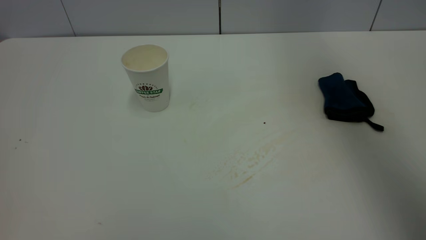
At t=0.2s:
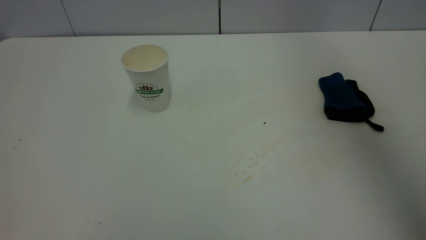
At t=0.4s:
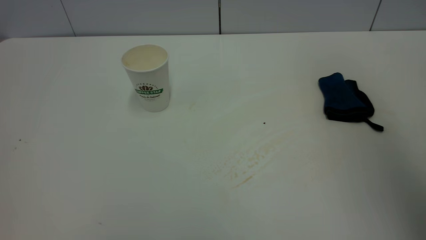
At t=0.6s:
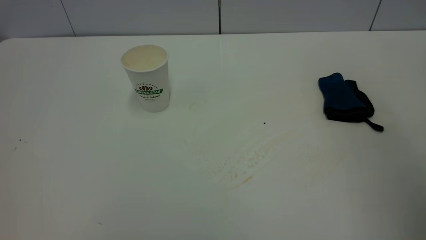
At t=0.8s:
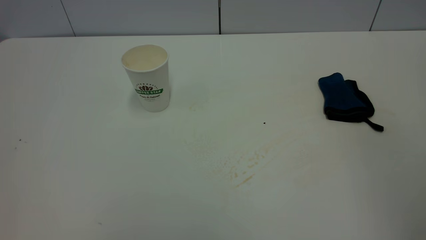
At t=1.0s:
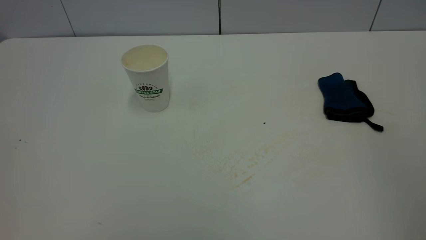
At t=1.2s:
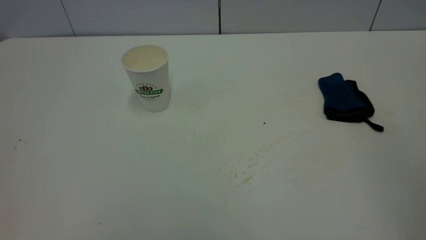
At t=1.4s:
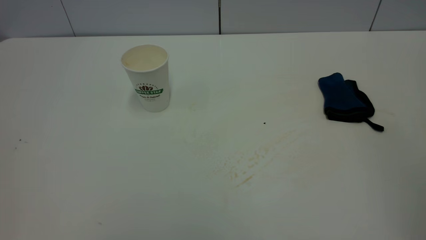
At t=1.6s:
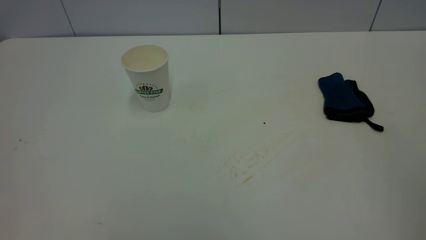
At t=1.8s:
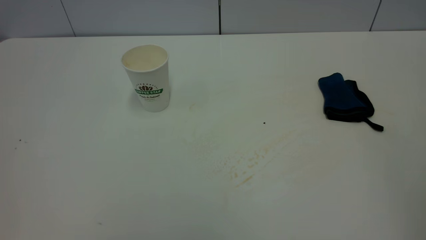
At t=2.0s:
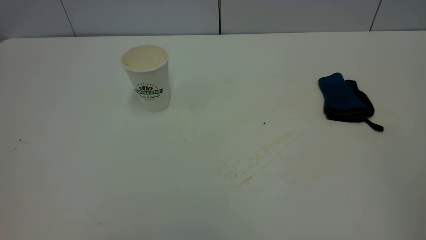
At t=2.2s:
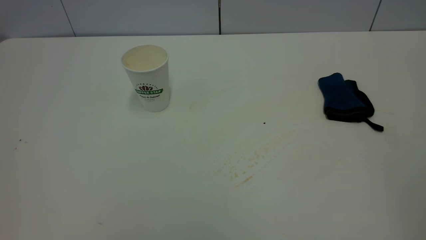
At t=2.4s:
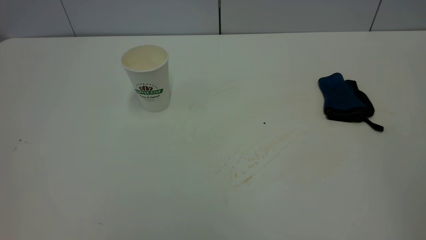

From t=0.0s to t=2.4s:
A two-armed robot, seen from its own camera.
Task of the whole recording: the left gripper pick up the fallen cup and place it upright, the right gripper grasp the blue rag and wipe the tea stain on the table, the right gripper put the blue rag back in its original position.
From t=0.0s to t=1.2s: The right gripper goes roughly 35 cm backward.

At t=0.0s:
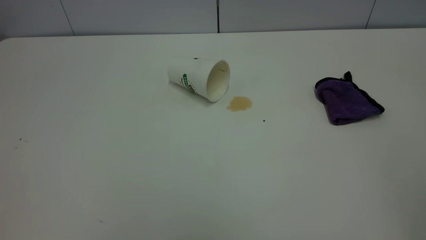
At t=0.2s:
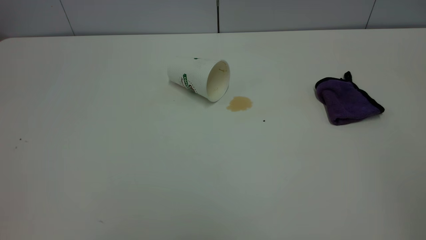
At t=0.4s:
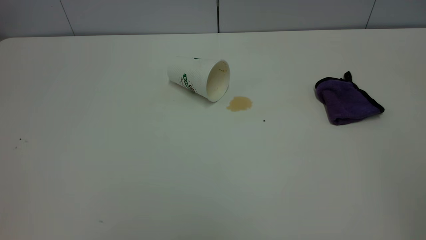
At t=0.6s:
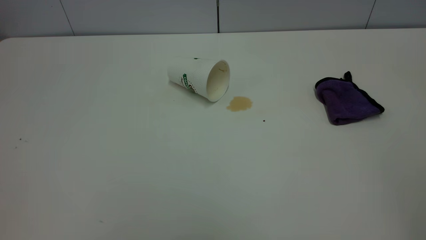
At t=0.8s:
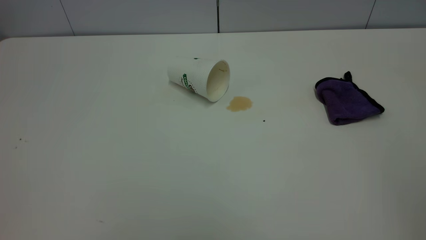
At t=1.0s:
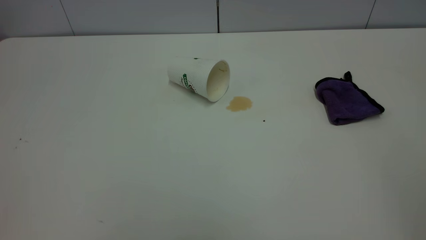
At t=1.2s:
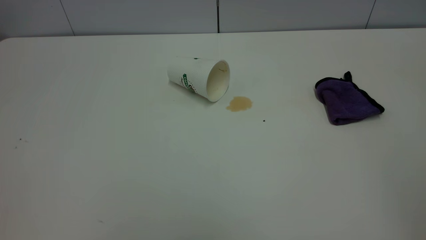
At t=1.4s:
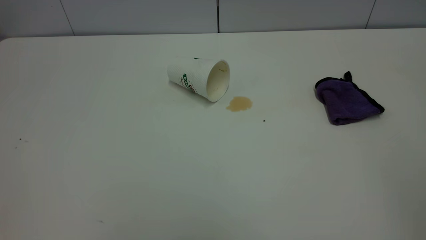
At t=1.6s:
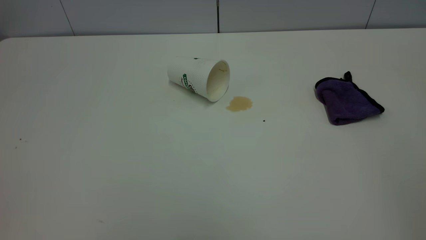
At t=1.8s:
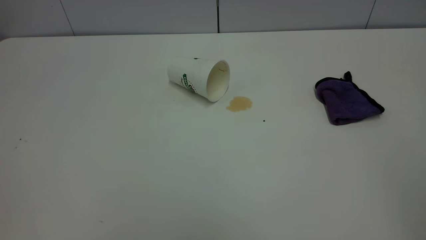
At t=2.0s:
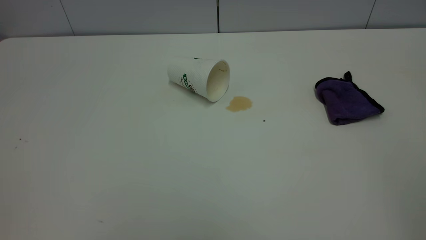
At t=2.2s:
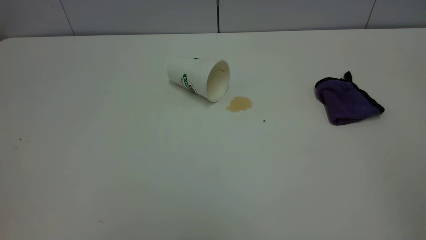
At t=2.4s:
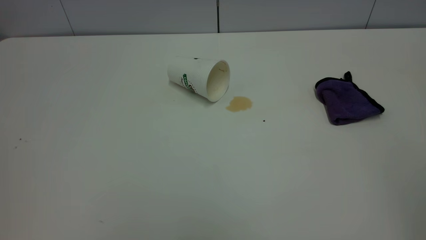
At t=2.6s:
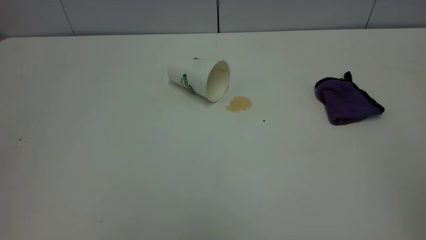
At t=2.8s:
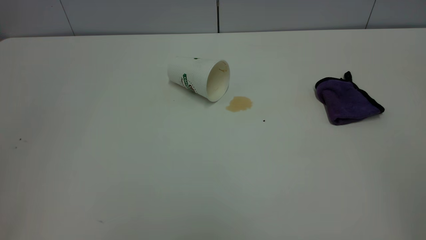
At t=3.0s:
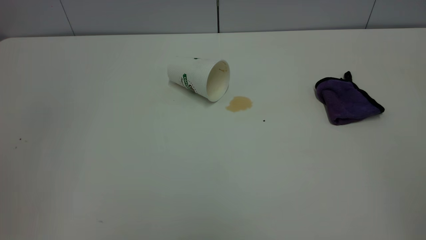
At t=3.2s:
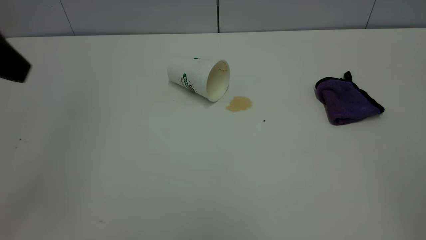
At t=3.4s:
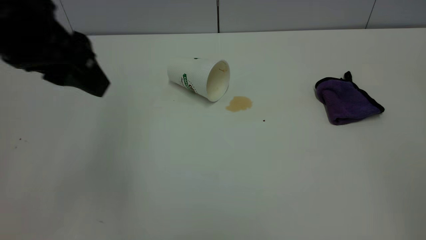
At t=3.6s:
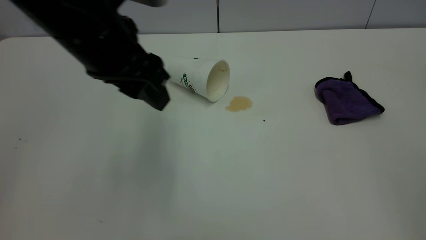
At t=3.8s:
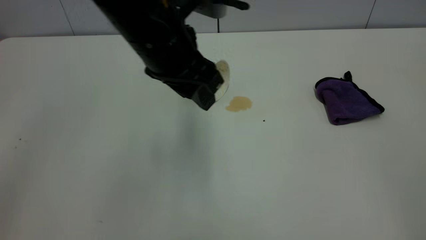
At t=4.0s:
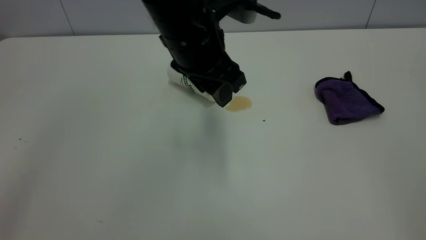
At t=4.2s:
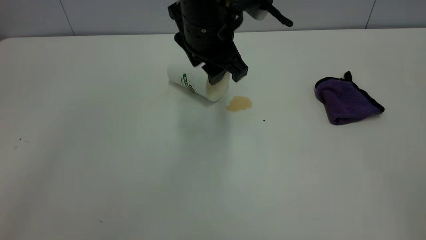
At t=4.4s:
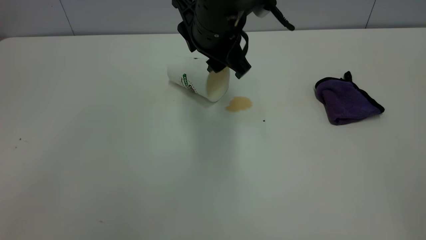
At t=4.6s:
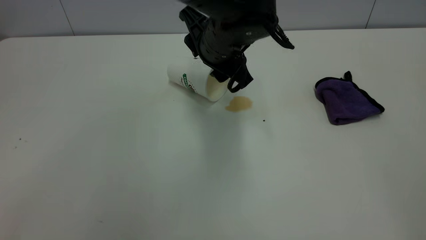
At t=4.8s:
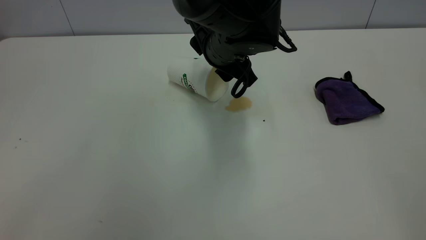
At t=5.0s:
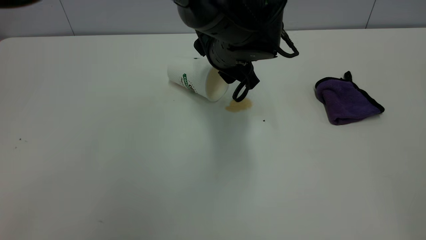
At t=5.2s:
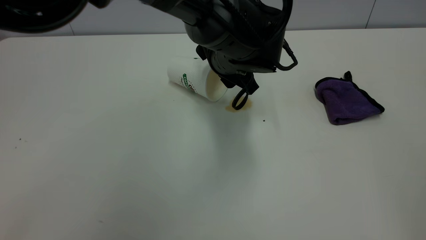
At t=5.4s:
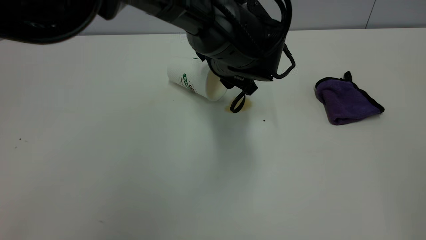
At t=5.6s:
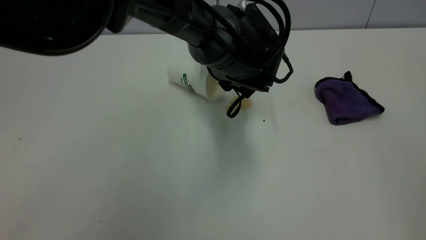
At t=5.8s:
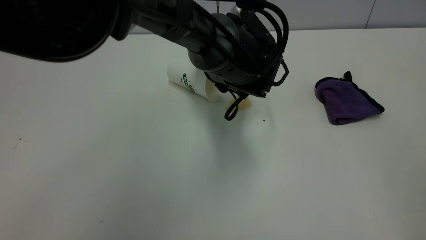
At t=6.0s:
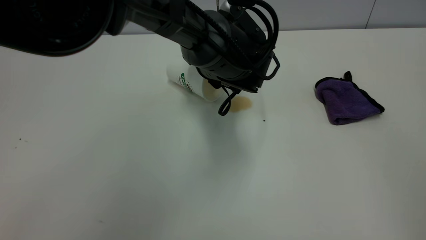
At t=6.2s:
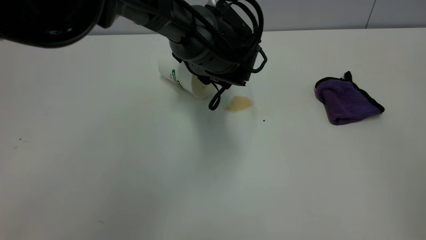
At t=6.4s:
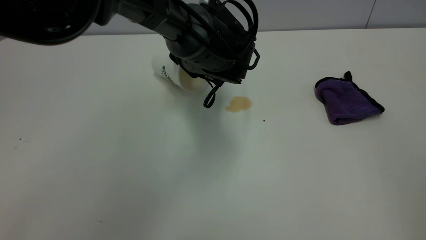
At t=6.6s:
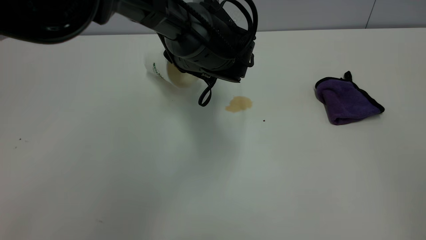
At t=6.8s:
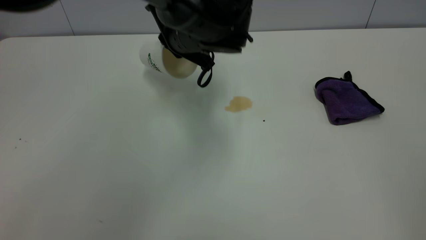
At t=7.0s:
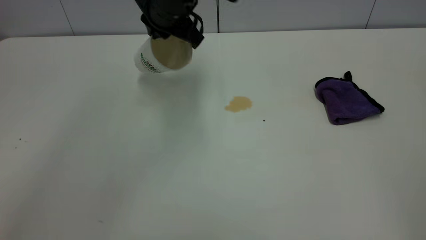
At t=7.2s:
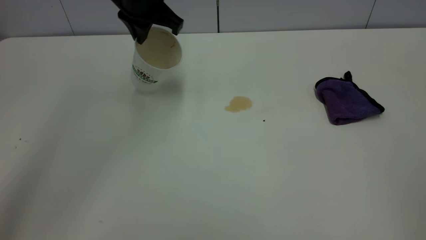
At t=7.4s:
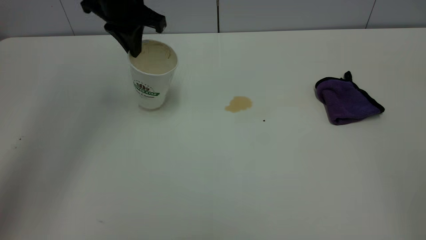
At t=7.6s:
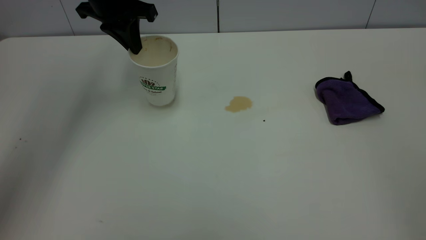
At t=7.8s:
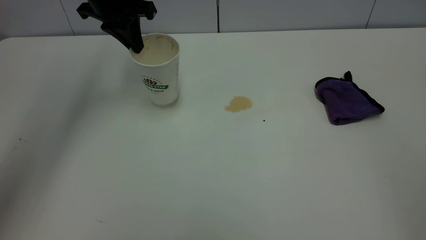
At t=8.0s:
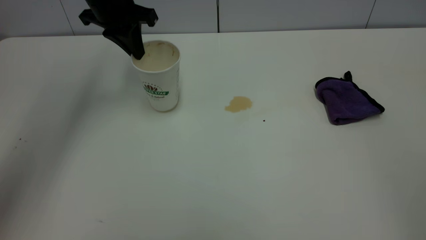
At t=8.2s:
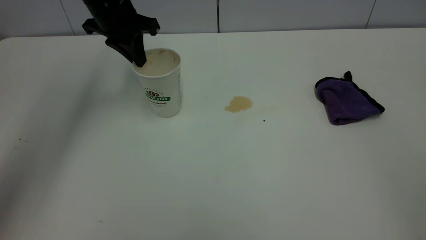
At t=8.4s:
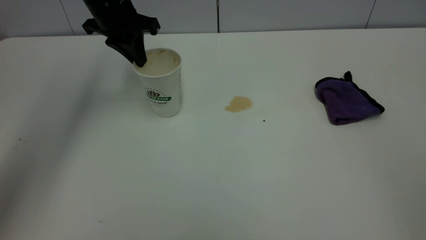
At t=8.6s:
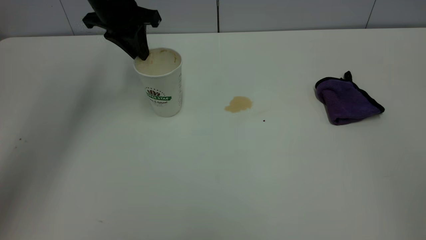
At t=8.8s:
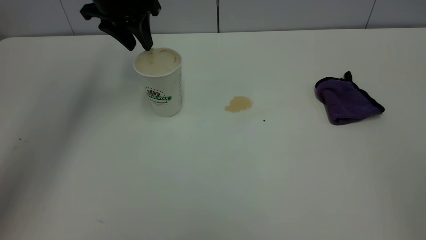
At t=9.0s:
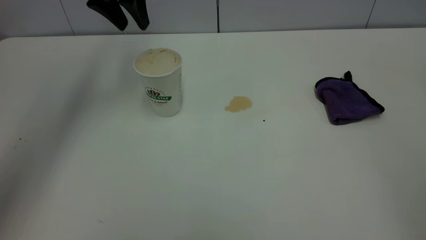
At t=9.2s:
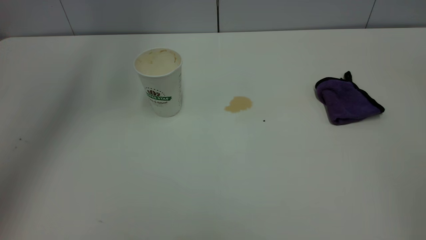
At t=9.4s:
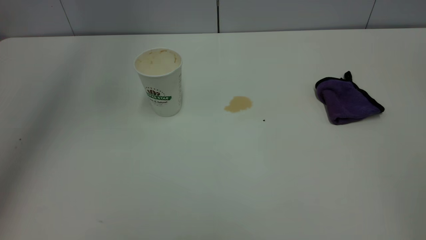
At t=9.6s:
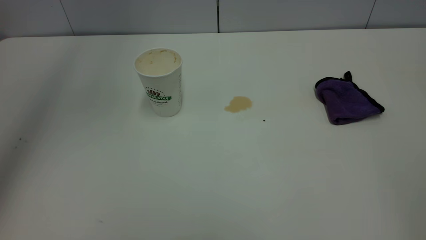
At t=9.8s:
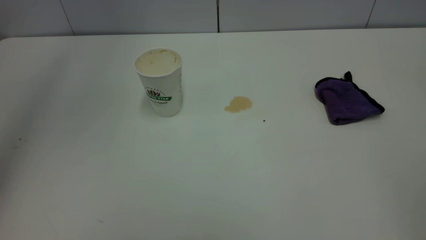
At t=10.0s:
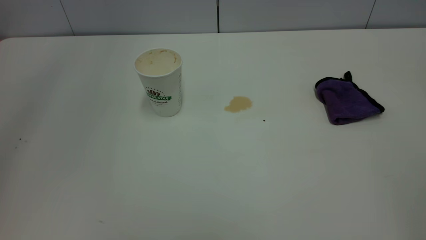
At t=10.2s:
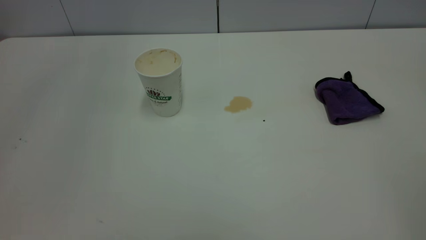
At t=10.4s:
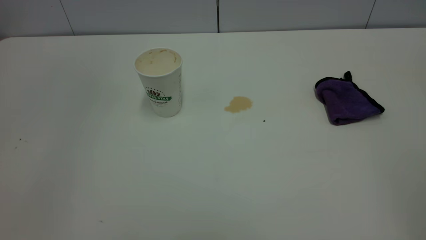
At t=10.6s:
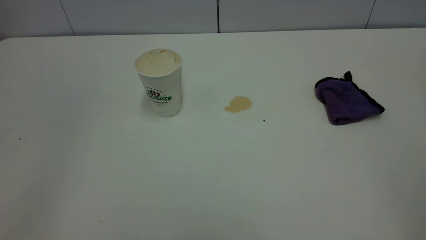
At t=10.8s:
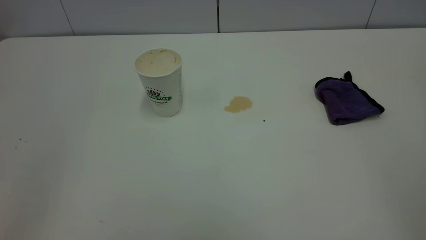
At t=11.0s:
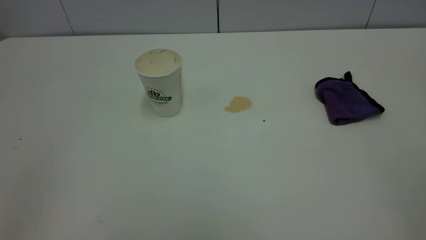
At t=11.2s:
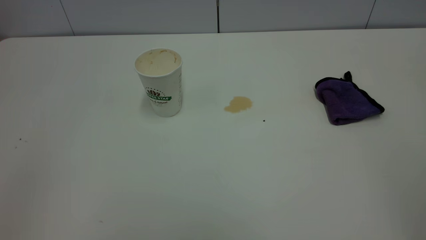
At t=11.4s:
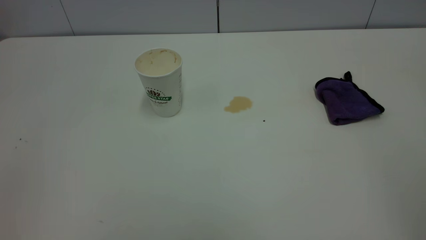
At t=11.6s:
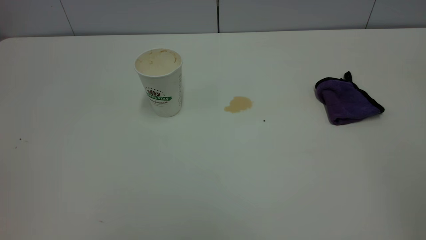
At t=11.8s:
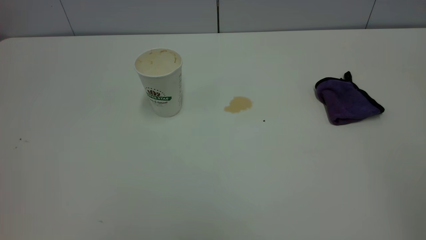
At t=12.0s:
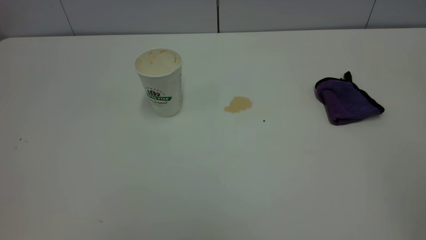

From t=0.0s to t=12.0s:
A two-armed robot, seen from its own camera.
Task of the whole recording: the left gripper pick up the fallen cup and place it upright, the right gripper grasp the purple rag and wipe the tea stain on the table, the right gripper put the purple rag back in its original position.
Step, from t=0.0s to t=8.8s: Stand the paper cup upright.
From t=0.0s to t=1.6s: Both grippers stay put.
From t=3.0s to t=4.4s: The left gripper travels to the right, forward and downward by about 35 cm.
From t=4.4s to t=6.0s: The left gripper goes some 10 cm downward.
From t=6.0s to t=7.6s: The left gripper heads to the left, upward and forward, covering some 25 cm, and closes.
From t=7.6s to t=9.0s: The left gripper shifts approximately 5 cm upward, and opens its fingers.
From t=9.0s to t=10.4s: The left gripper shifts about 35 cm backward and upward.

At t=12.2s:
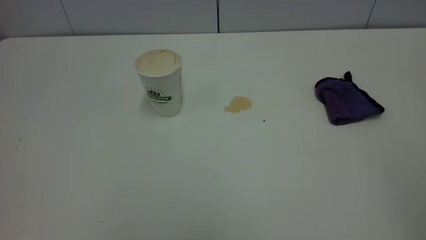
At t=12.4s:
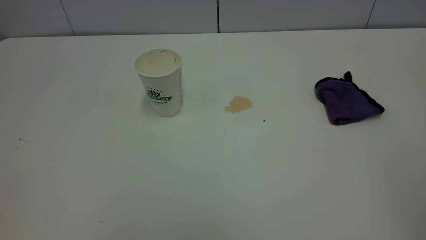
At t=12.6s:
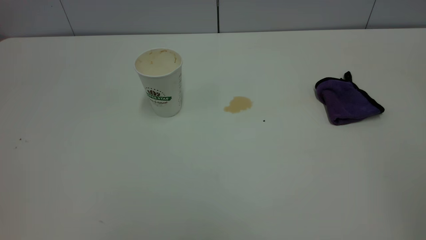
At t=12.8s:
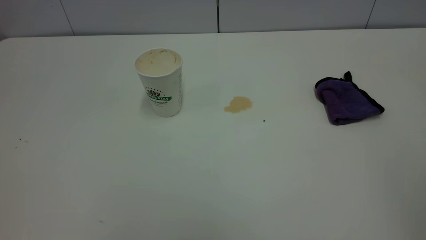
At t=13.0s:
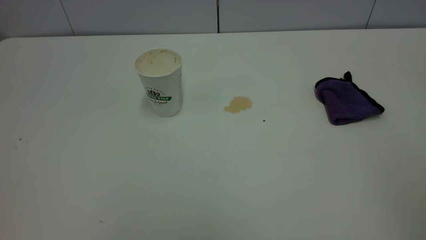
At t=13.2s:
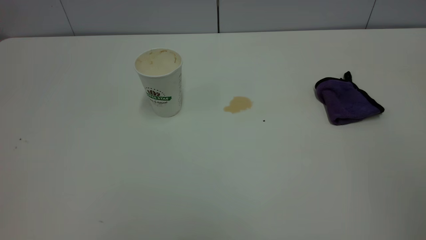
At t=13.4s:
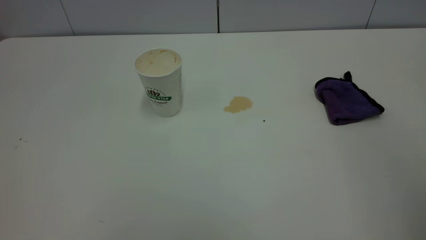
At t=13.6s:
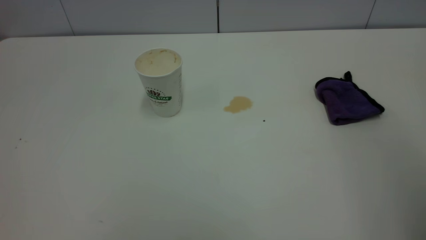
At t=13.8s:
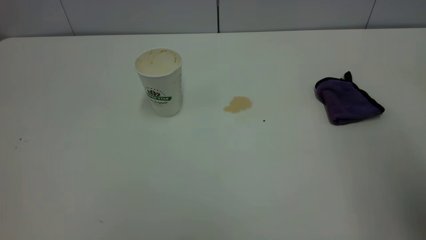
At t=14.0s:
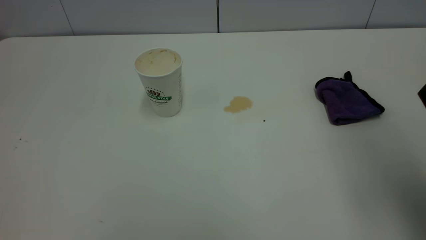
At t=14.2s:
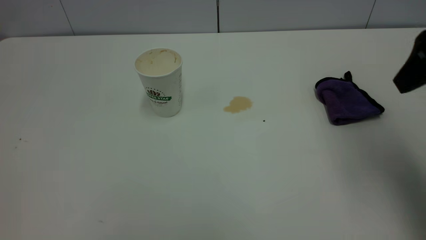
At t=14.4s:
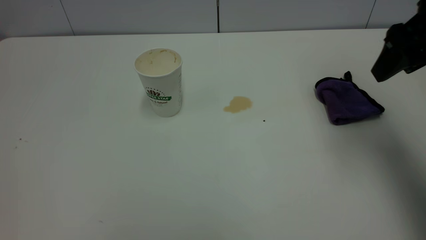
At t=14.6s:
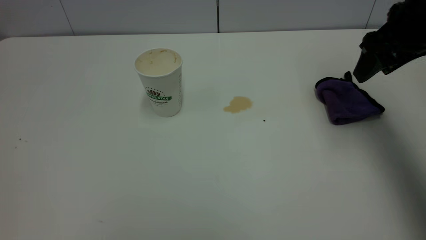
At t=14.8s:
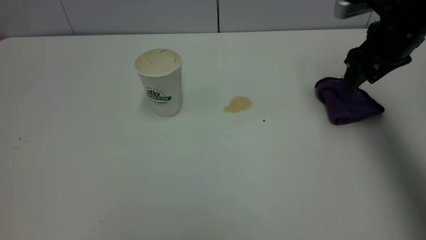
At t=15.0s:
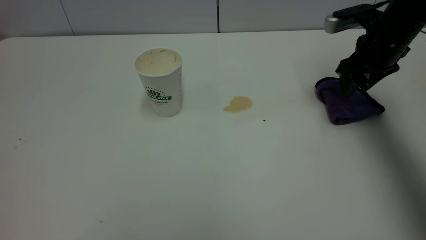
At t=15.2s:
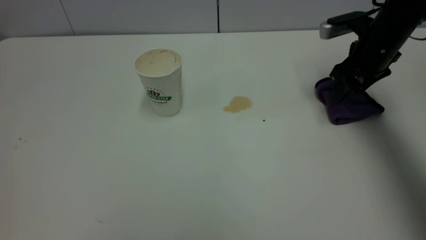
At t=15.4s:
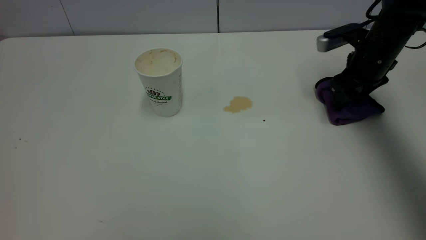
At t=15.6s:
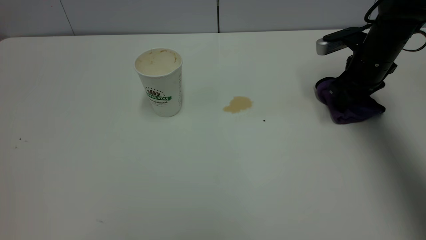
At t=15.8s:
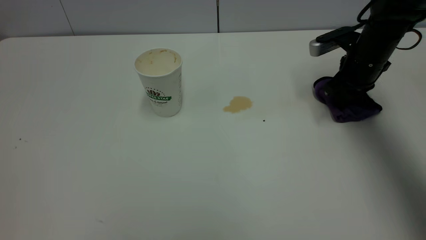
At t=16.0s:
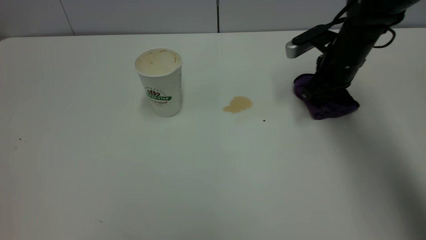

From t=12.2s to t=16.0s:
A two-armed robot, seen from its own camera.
Task of the whole recording: the left gripper pick up the fallen cup and place it upright, the right gripper grasp the purple rag and wipe the tea stain on the table, the right gripper put the purple rag back in its original position.
From t=13.4s to t=14.8s: The right gripper is displaced forward and downward by roughly 40 cm.
From t=14.8s to t=16.0s: The right gripper heads downward and to the left, covering roughly 10 cm, and closes.
